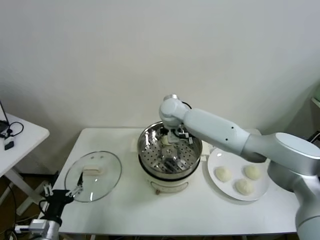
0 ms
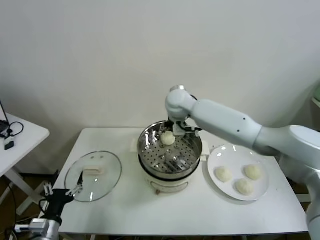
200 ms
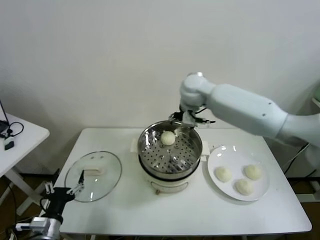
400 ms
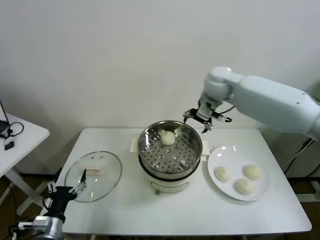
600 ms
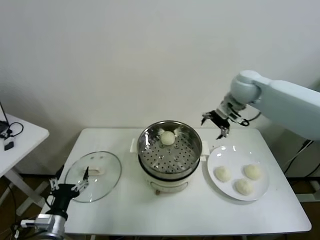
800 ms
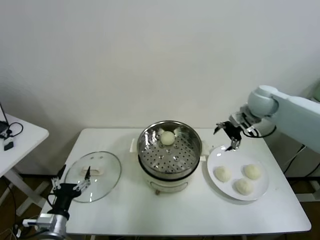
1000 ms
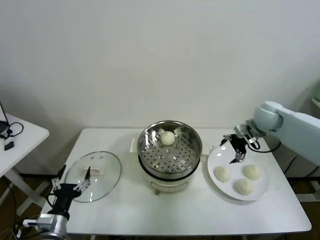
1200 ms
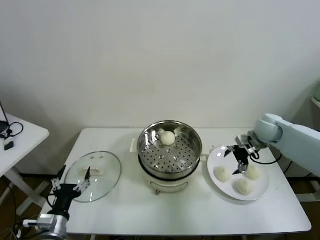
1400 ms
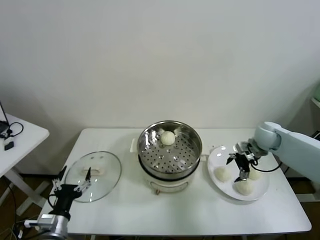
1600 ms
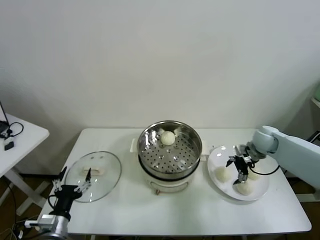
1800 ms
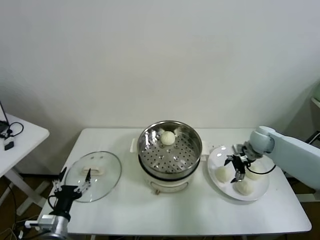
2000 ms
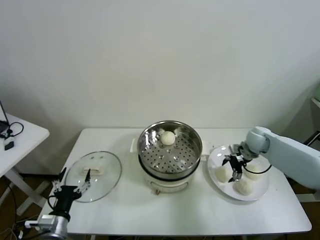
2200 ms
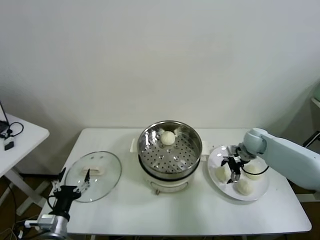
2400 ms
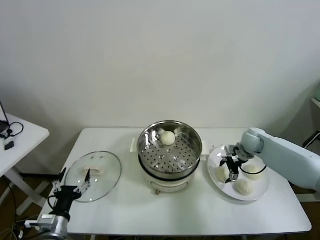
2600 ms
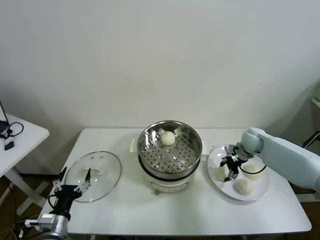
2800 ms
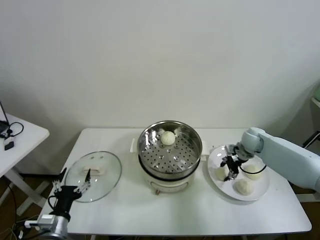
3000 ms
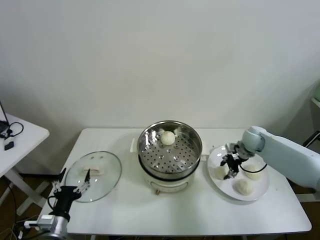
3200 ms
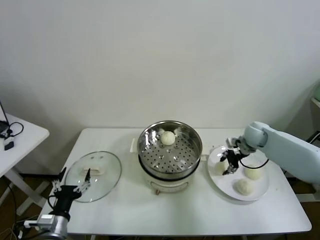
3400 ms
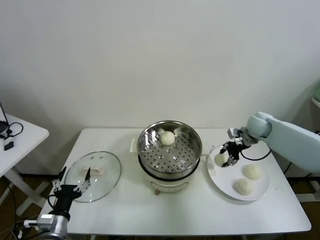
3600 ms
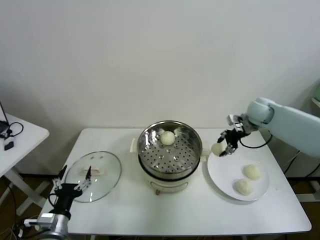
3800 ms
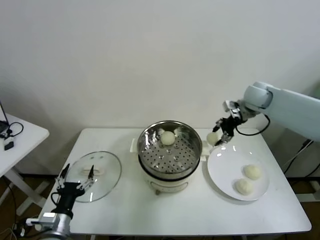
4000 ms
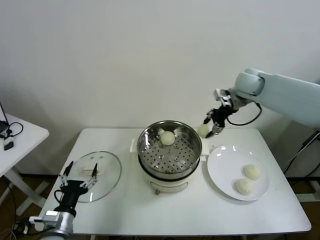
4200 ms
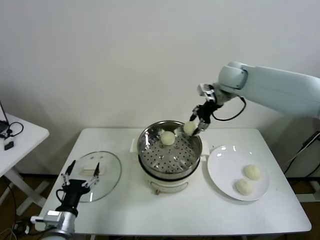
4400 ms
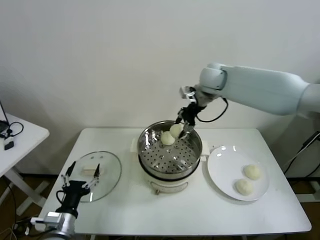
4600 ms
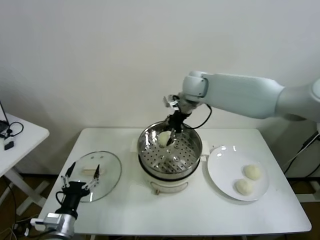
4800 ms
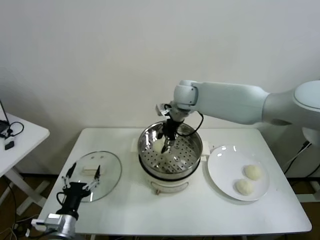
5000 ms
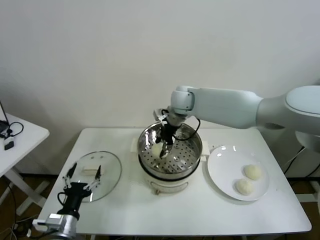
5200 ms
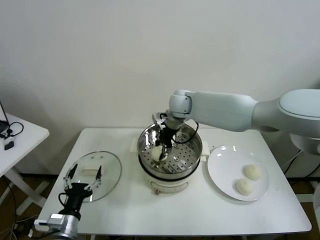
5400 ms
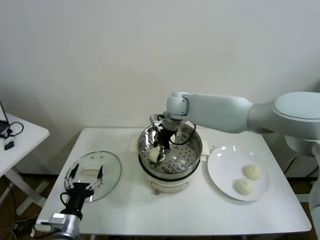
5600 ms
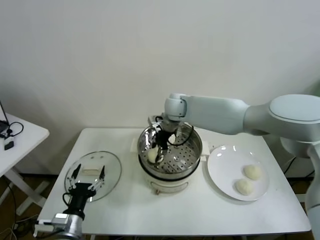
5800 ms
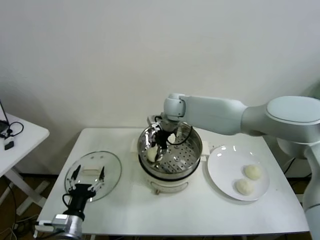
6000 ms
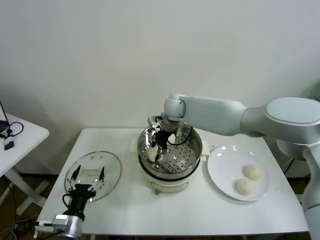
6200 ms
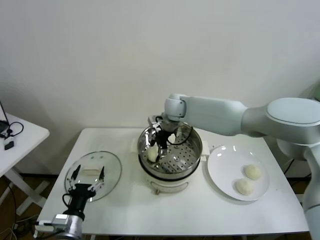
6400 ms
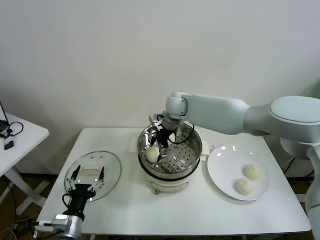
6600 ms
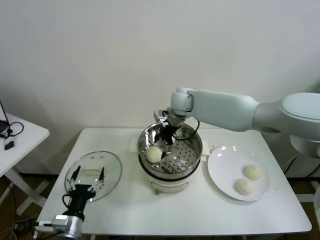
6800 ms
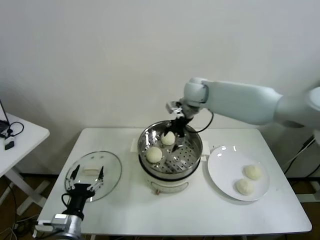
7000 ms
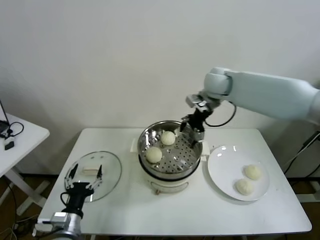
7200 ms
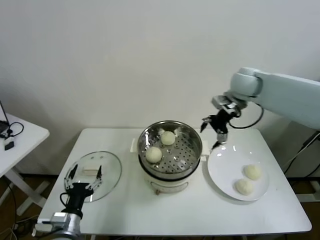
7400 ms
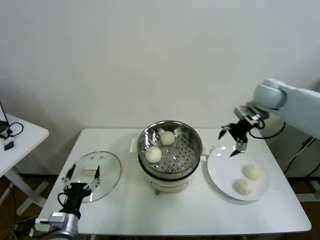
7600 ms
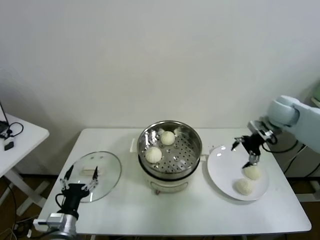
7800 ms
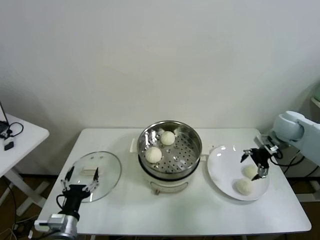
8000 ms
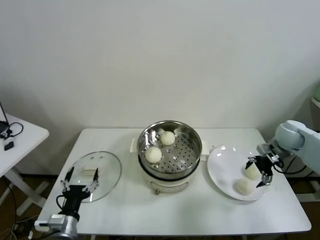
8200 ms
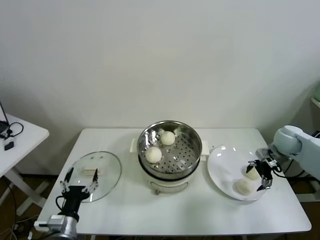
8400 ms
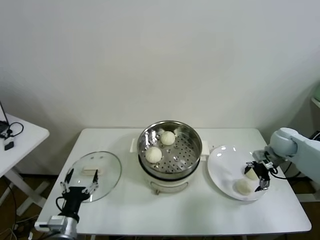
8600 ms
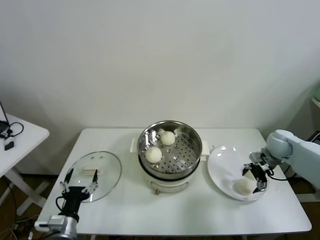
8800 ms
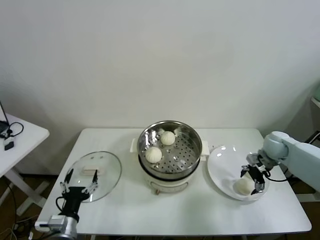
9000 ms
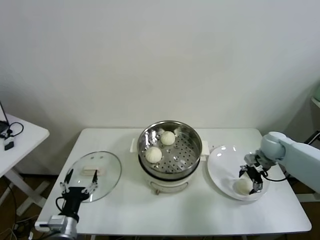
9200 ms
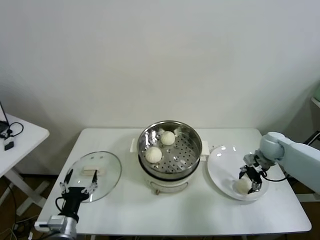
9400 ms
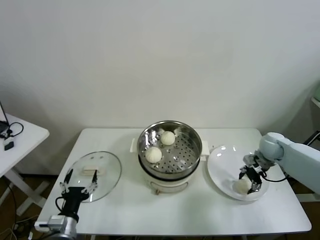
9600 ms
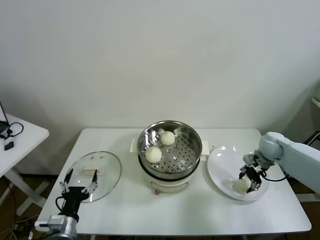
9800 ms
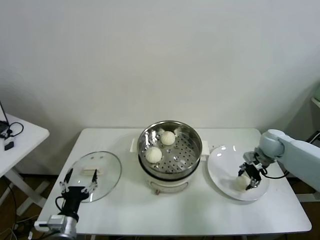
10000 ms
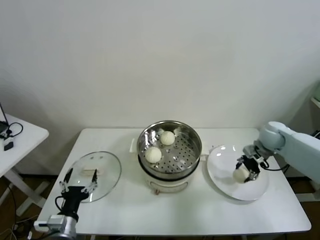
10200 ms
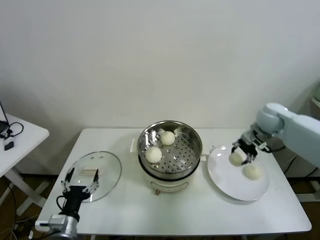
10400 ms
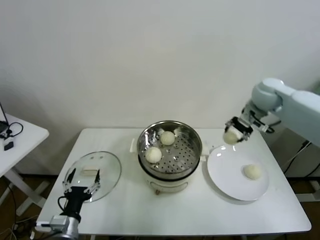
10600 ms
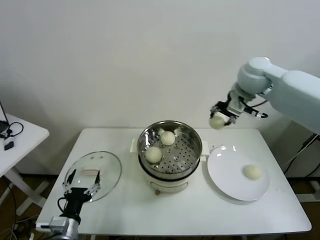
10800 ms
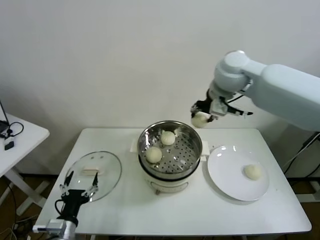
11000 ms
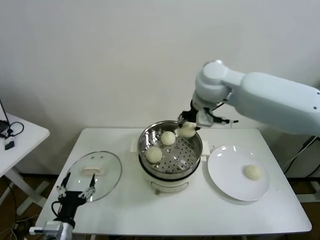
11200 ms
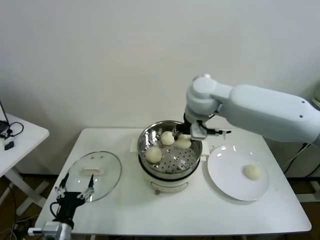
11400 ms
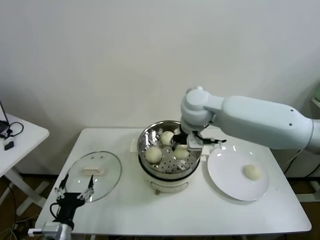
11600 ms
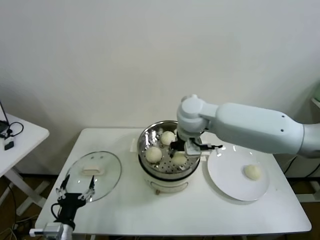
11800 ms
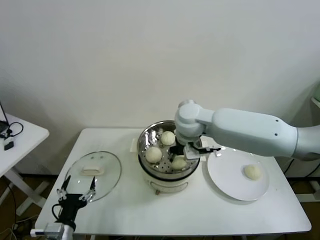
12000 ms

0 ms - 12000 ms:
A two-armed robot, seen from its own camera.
Task of the whole recording: take steamed baozi put them in steamer.
Step, 200 ms - 3000 ms: Grasp the baozi in the plate with right gripper.
Step, 3400 ms - 6600 ms: Place the baozi on the steamer with right gripper.
Step, 6800 ms - 9600 ms: Grasp the baozi in the plate with right gripper.
0 ms - 1600 ms: The right gripper travels to the right by roughly 35 cm.
1600 ms - 3000 ms: The right gripper changes place by some 5 cm, and closes.
3000 ms - 4400 ms: The right gripper is displaced upward and to the left by roughly 30 cm.
4400 ms - 6000 ms: The right gripper is displaced to the left and downward by roughly 20 cm.
6000 ms - 7600 ms: The right gripper moves to the right, about 30 cm, and opens up.
7600 ms - 9000 ms: The right gripper travels downward by roughly 20 cm.
9000 ms - 10400 ms: The right gripper shifts approximately 15 cm upward and to the left, and closes up.
10400 ms - 12000 ms: The right gripper heads to the left, covering approximately 30 cm.

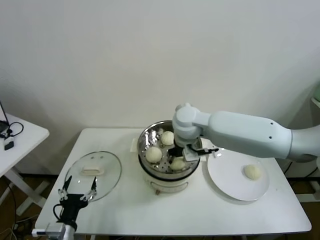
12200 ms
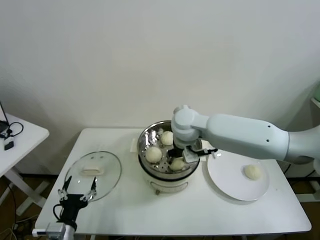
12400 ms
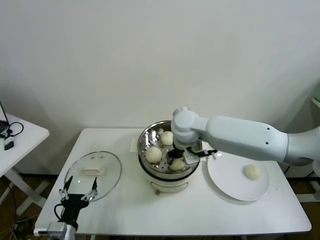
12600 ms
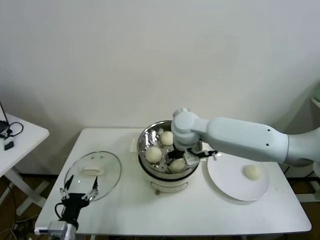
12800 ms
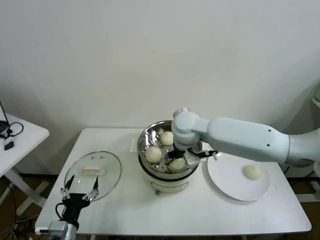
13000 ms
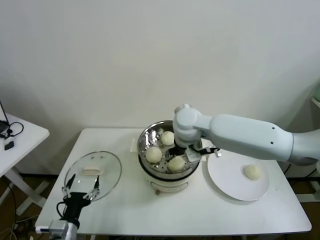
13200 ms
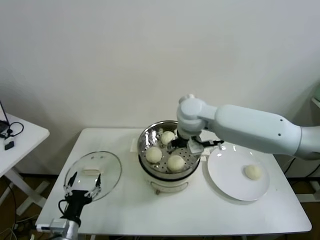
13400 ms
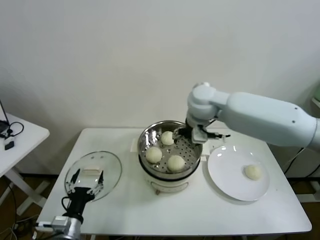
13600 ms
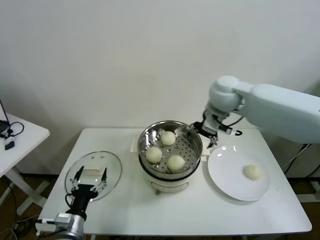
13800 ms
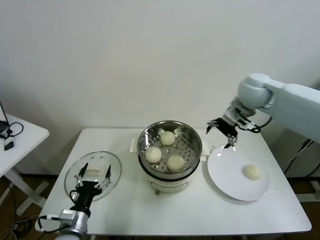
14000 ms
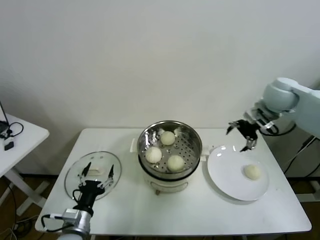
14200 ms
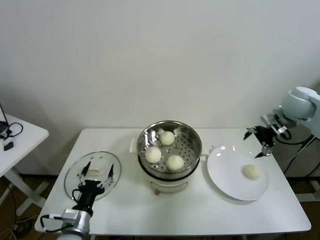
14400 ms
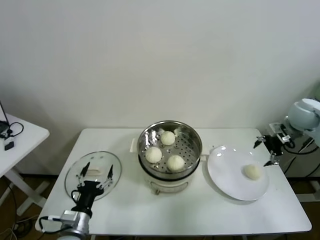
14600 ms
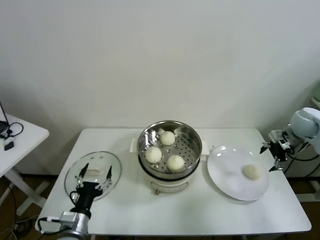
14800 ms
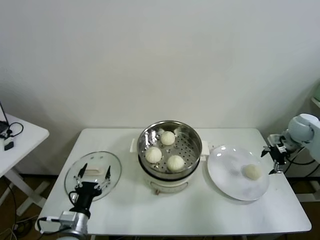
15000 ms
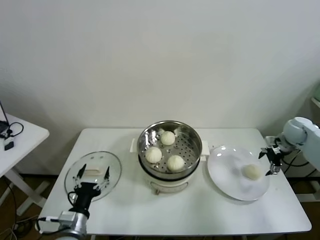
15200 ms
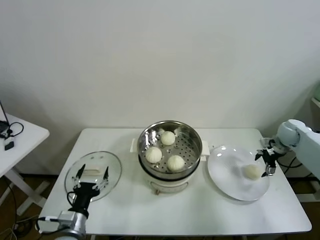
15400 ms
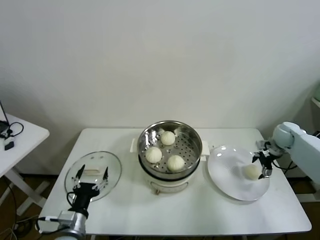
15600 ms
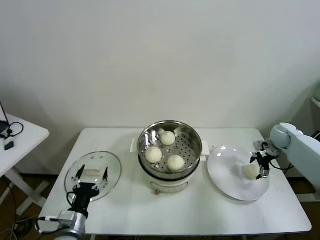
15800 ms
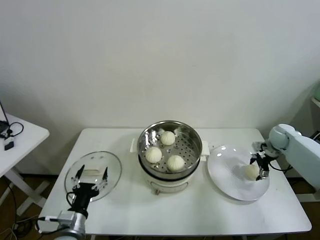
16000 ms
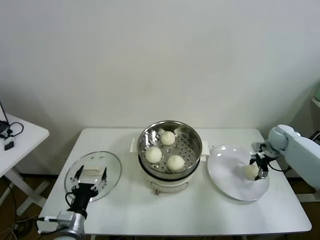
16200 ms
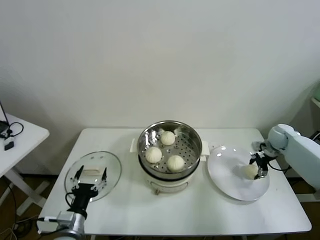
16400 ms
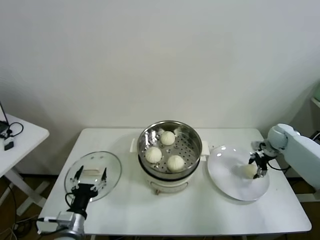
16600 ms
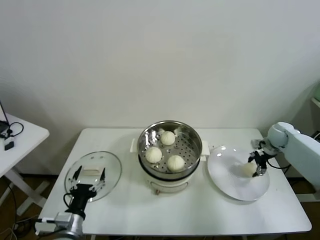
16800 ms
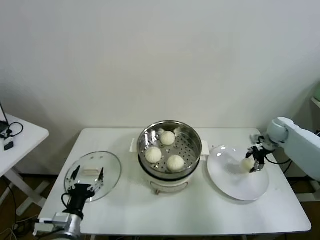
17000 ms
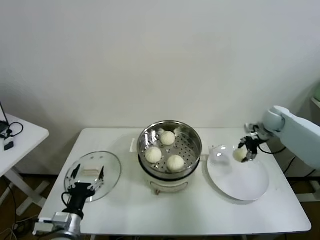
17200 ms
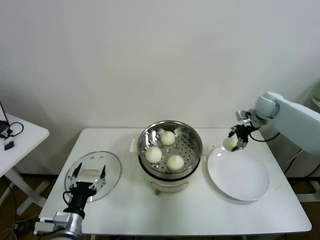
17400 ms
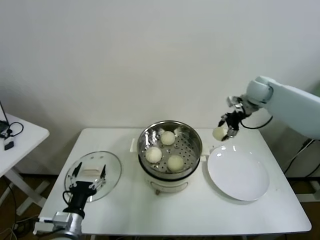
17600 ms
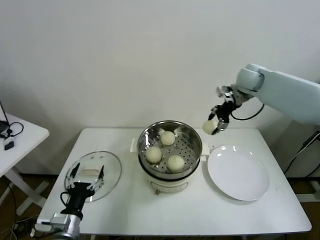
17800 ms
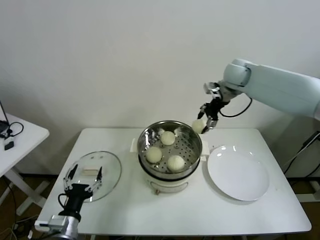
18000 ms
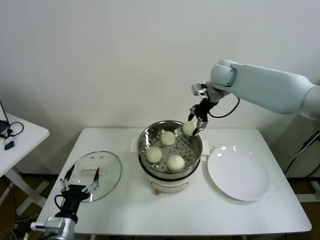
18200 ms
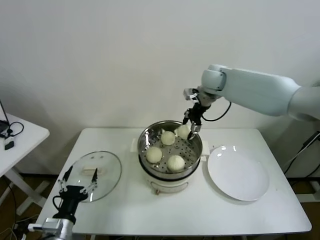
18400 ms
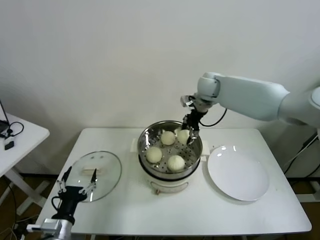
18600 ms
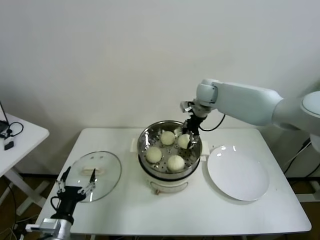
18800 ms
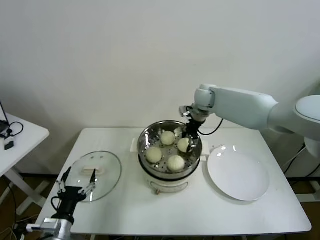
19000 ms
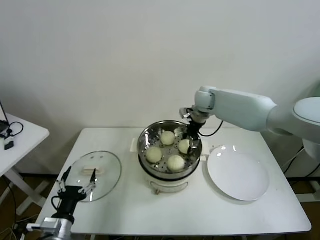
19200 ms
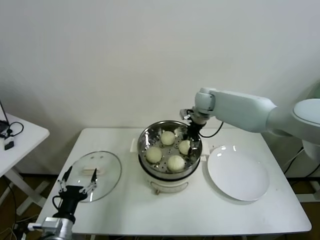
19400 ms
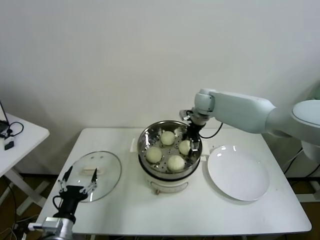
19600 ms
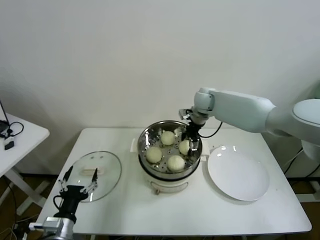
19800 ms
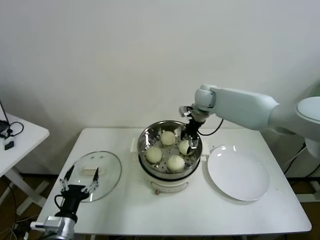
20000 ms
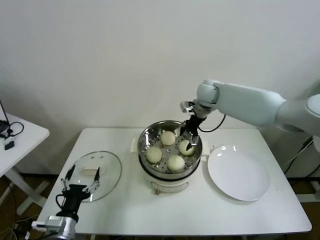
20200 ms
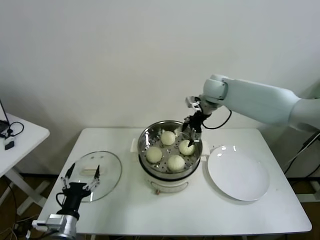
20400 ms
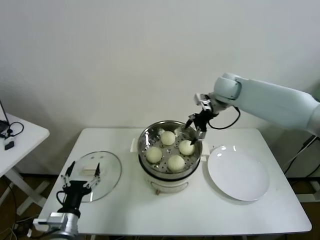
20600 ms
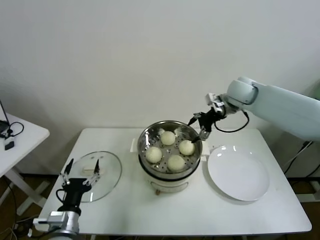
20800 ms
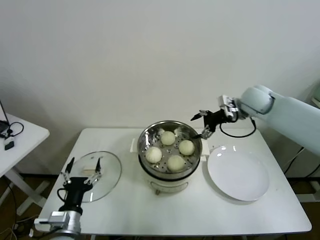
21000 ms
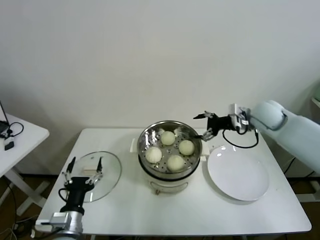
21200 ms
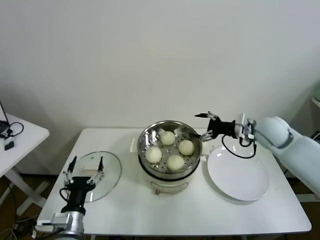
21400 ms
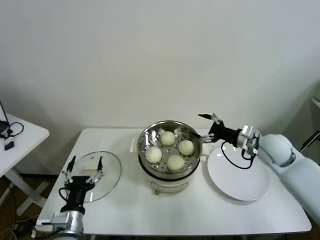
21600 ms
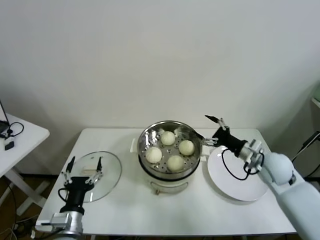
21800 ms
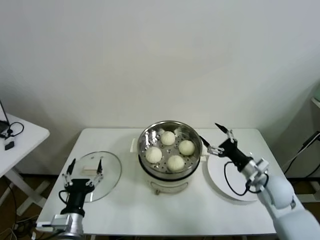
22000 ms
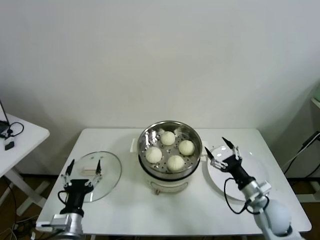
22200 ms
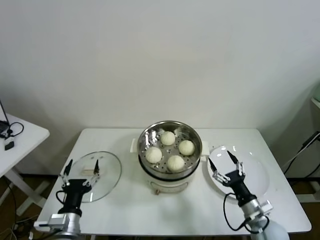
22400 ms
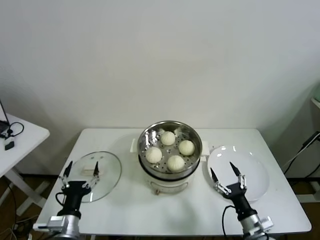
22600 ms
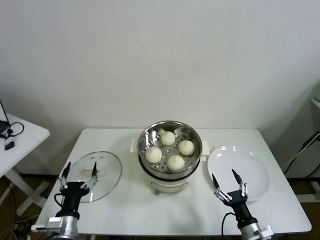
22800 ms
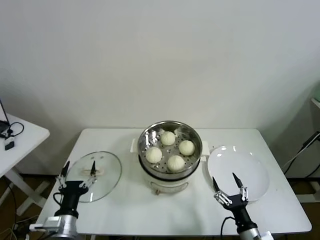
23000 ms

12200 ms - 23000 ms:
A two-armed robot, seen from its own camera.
Task of the whole recording: take steamed baozi put them in steamer.
Step, 13200 ms - 16400 ms: Grasp the baozi in the plate with right gripper.
Step, 16600 ms - 19800 ms: Place the baozi on the steamer with right gripper.
12200 ms - 13800 ms: The right gripper moves to the right and upward, roughly 15 cm, and opens its fingers.
13800 ms - 15200 ms: The right gripper shifts roughly 35 cm to the right and downward.
15200 ms - 16800 ms: The right gripper shifts roughly 5 cm downward, and closes up.
16800 ms - 18400 ms: The right gripper shifts some 35 cm to the left and upward.
18400 ms - 20000 ms: The right gripper moves downward, roughly 10 cm, and opens.
20000 ms - 21400 ms: The right gripper goes some 25 cm to the right and backward.
21400 ms - 23000 ms: The right gripper travels backward and downward by approximately 40 cm.
